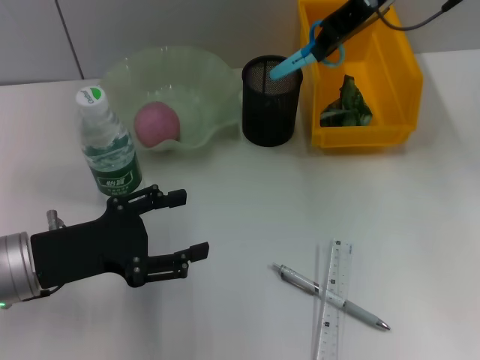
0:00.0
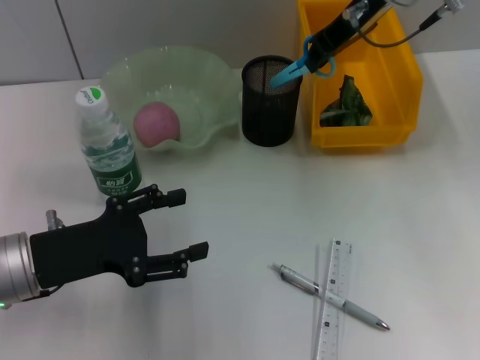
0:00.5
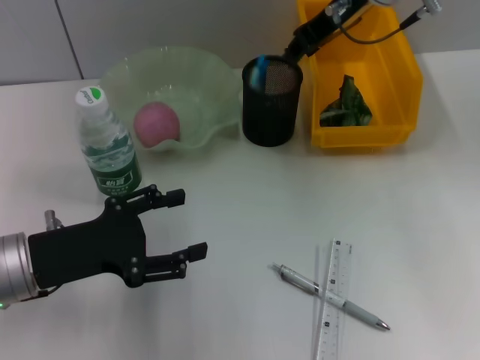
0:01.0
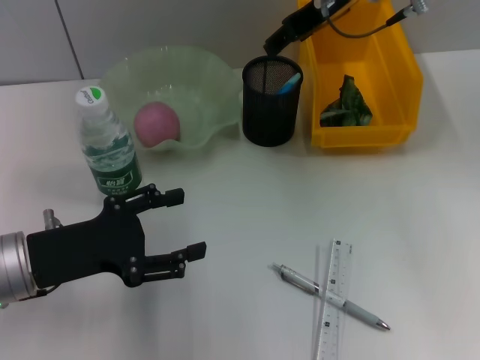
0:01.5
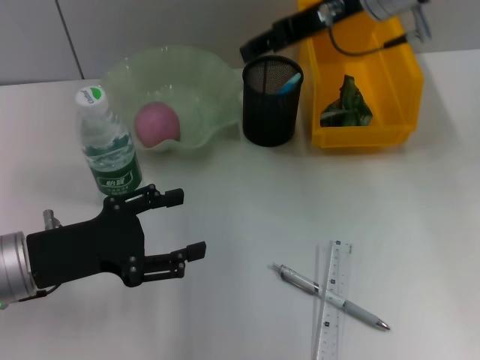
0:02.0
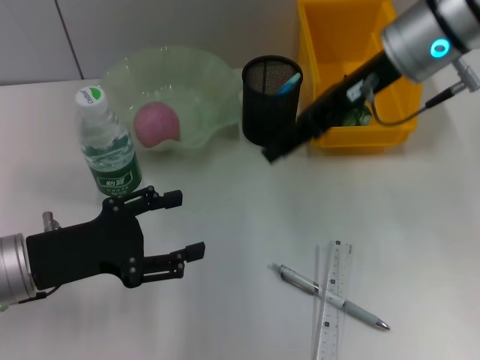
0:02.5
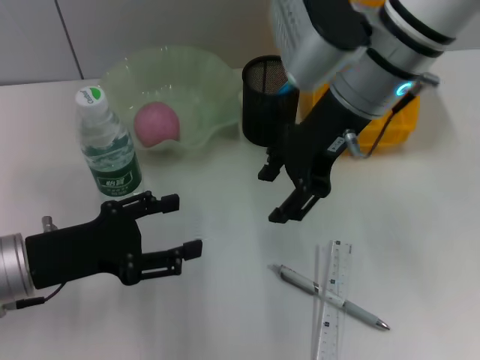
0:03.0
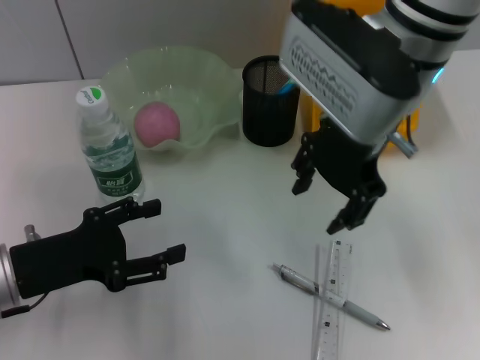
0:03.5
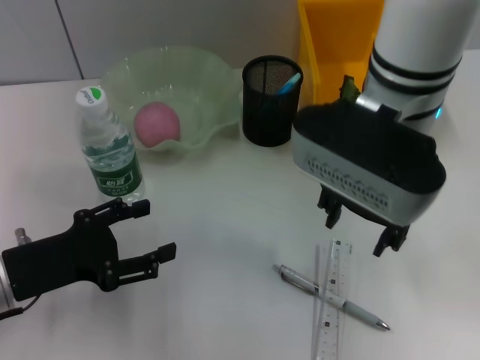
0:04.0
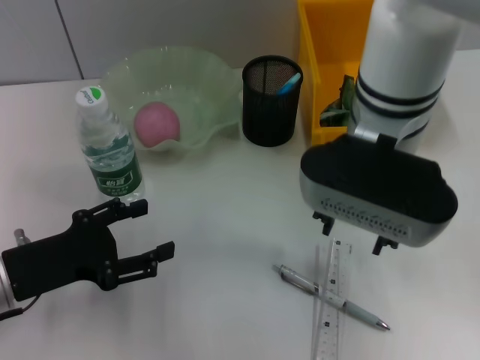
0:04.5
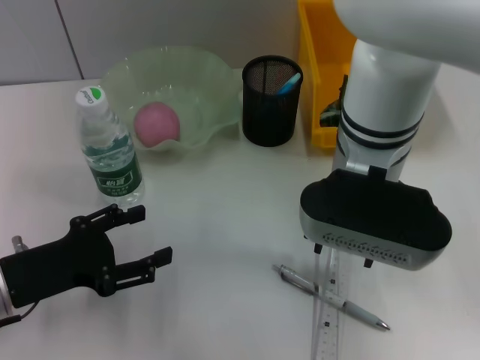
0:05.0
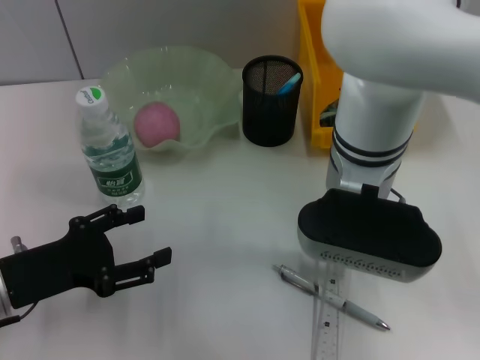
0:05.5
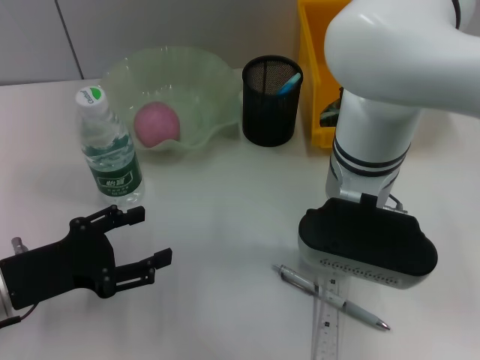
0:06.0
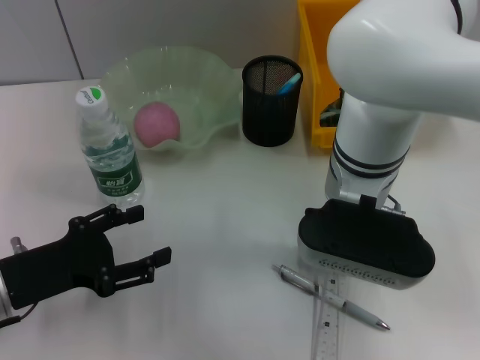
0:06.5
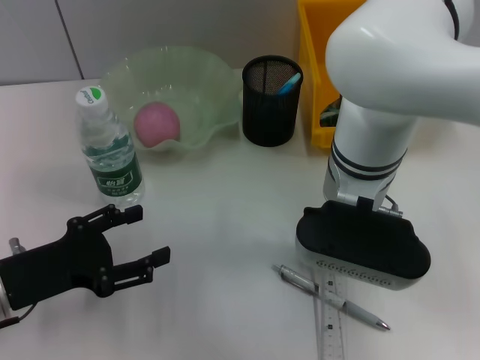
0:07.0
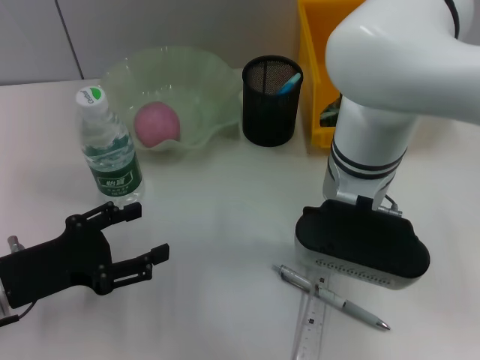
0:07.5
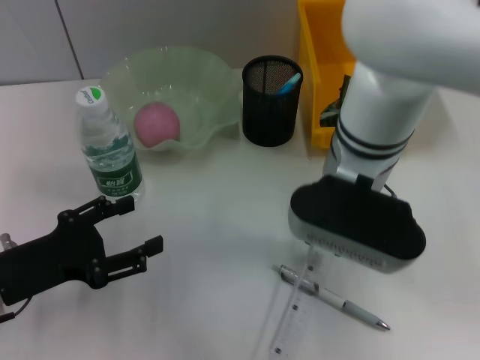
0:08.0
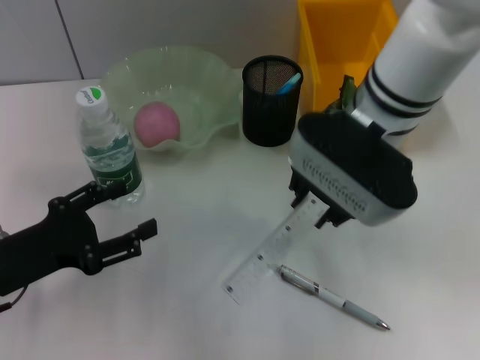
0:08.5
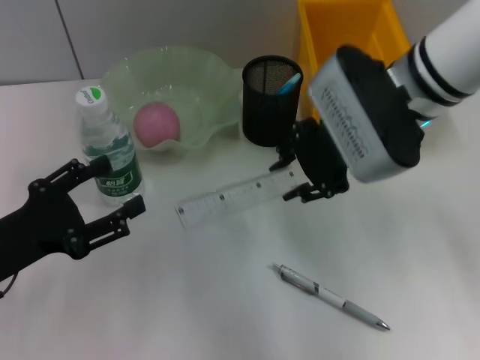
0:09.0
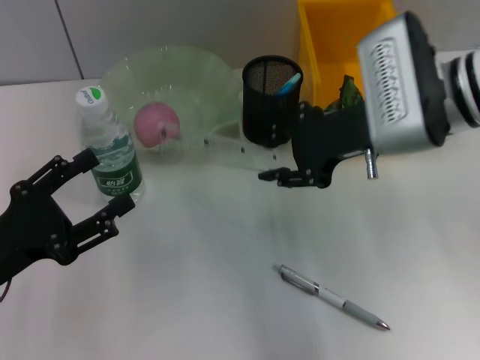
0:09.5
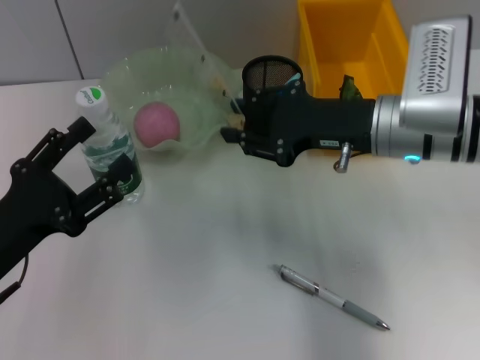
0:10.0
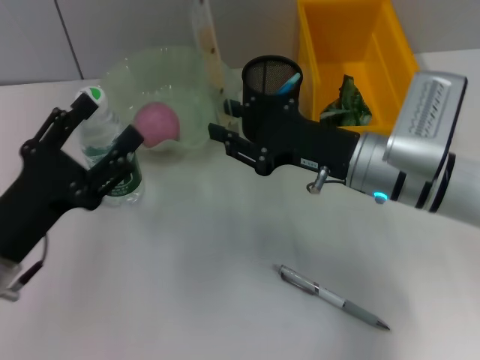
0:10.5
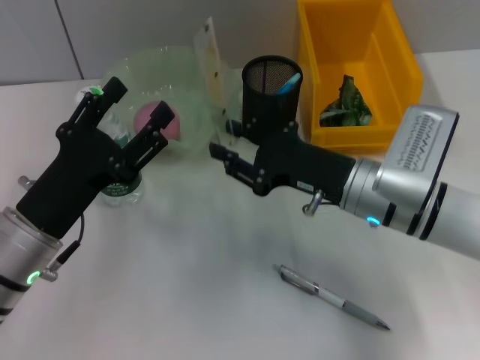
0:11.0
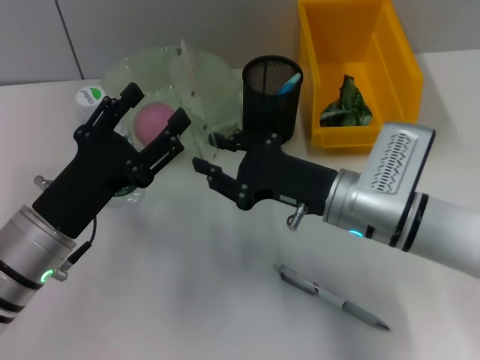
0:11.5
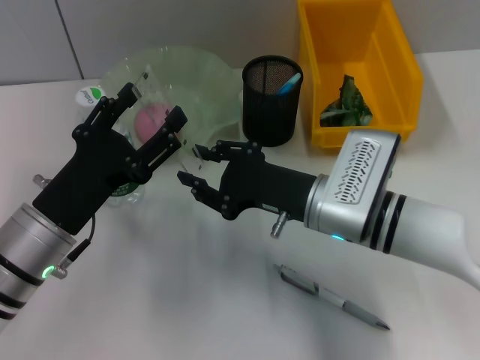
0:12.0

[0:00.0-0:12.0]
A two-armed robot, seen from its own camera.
Step, 0:02.0 to 0:07.5: Grab the ruler with the right hand.
0:00.0 to 0:02.0: The right gripper opens its fingers.
0:02.0 to 0:04.0: The right gripper heads backward and to the left, covering about 10 cm.
0:04.0 to 0:06.0: The right gripper goes some 5 cm downward.
0:06.0 to 0:08.0: The right gripper closes its fingers.
0:08.0 to 0:10.0: The right gripper heads to the right, covering about 10 cm.
0:10.0 to 0:12.0: The left gripper travels to the right by some 5 cm. Meanwhile the right gripper goes approximately 10 cm downward and to the left.

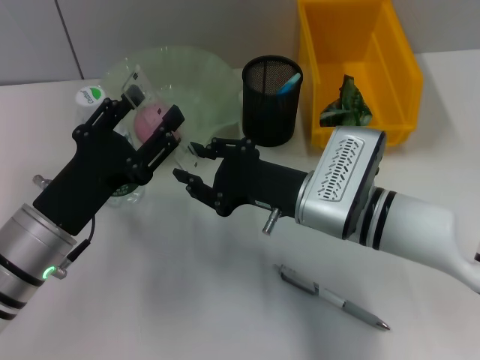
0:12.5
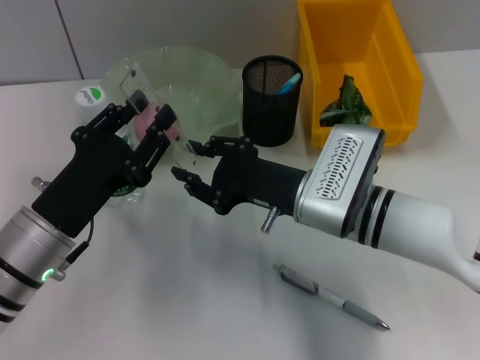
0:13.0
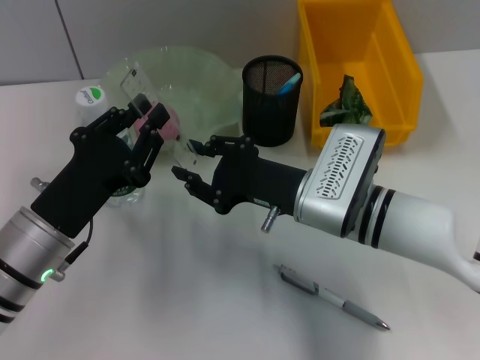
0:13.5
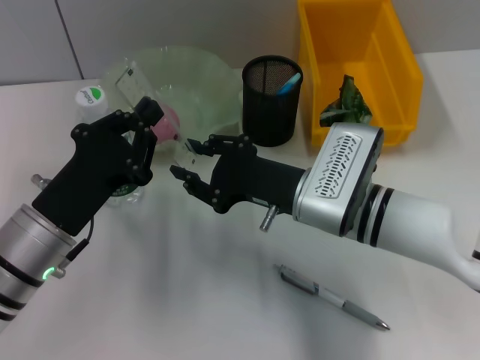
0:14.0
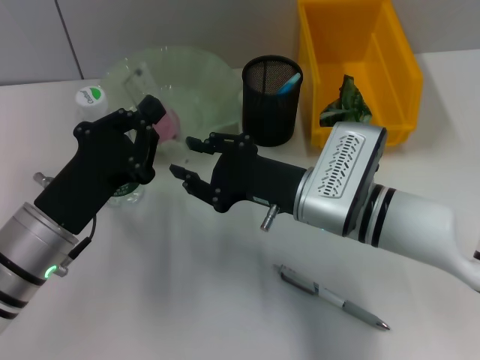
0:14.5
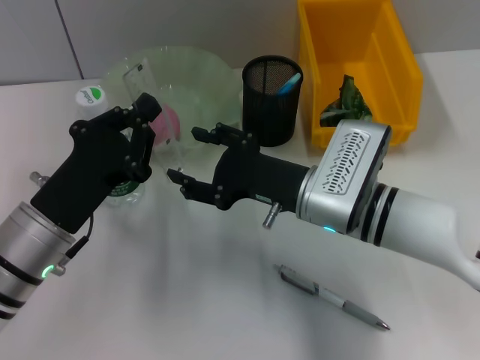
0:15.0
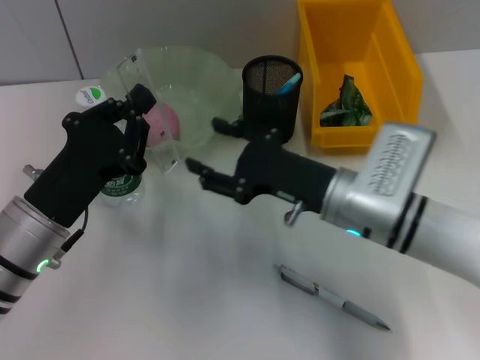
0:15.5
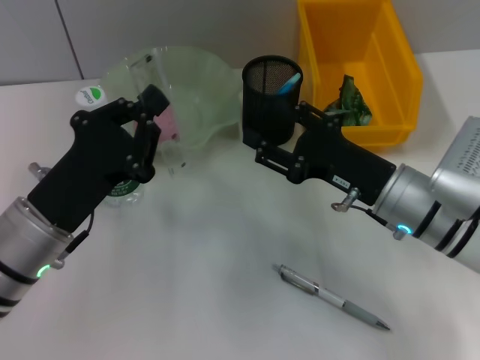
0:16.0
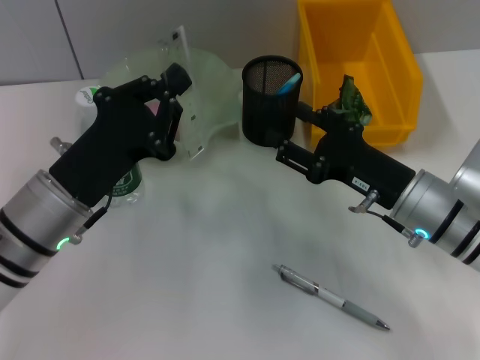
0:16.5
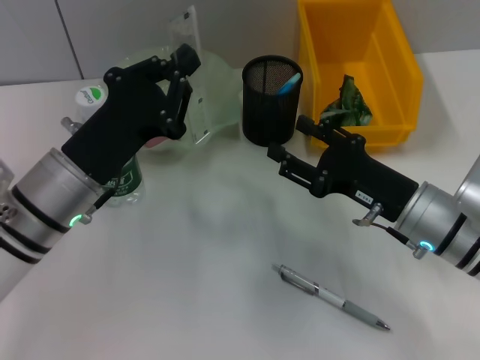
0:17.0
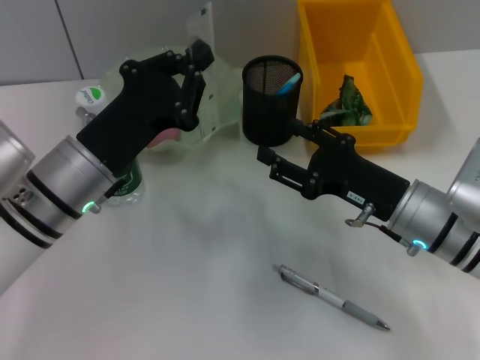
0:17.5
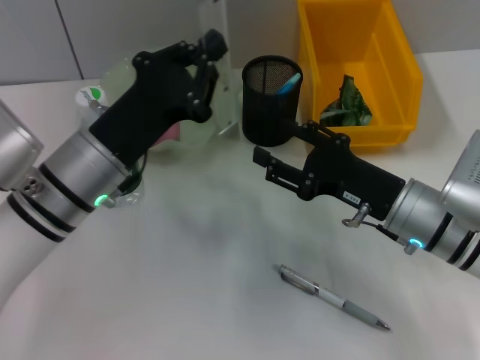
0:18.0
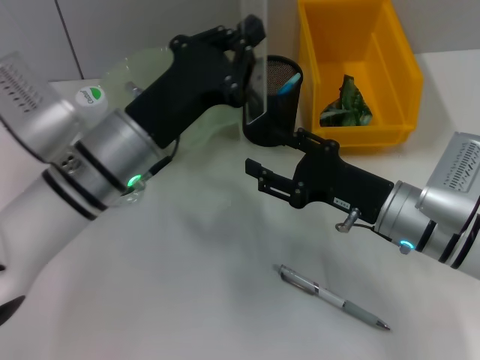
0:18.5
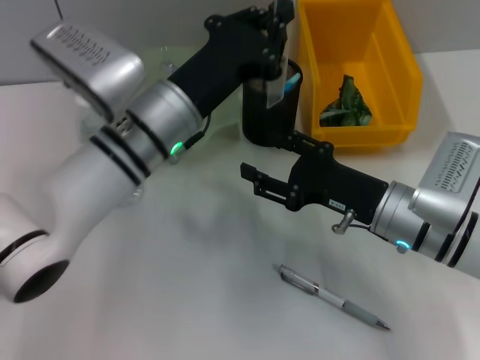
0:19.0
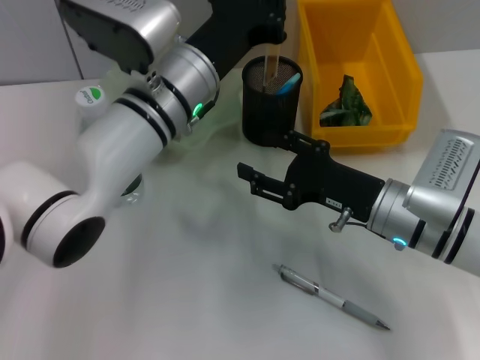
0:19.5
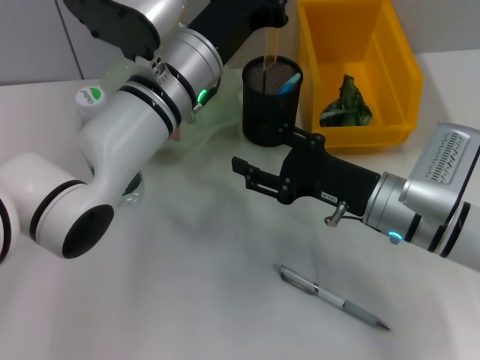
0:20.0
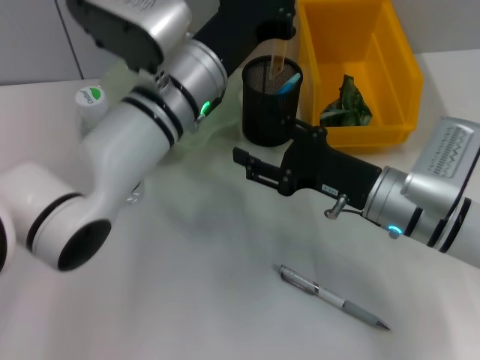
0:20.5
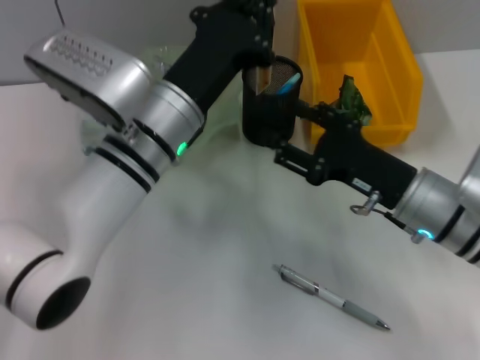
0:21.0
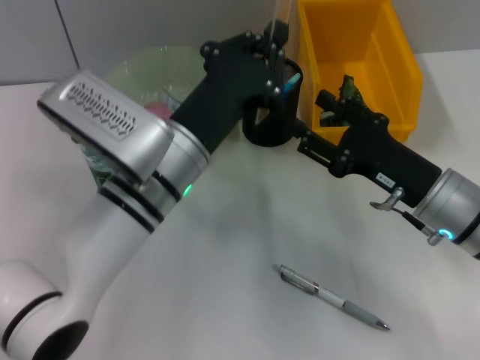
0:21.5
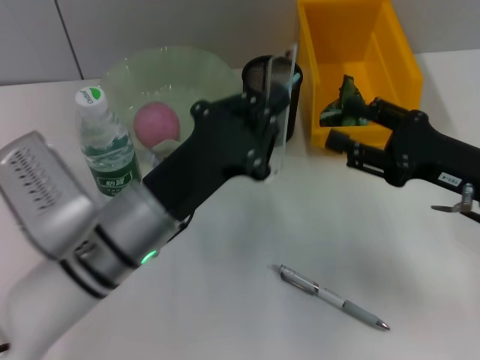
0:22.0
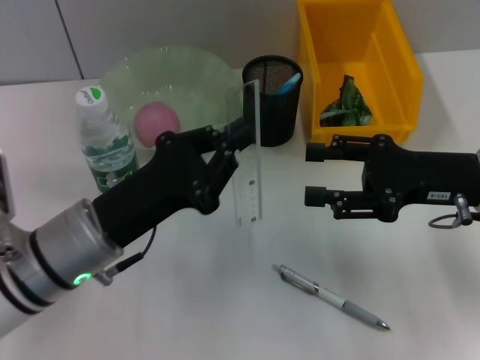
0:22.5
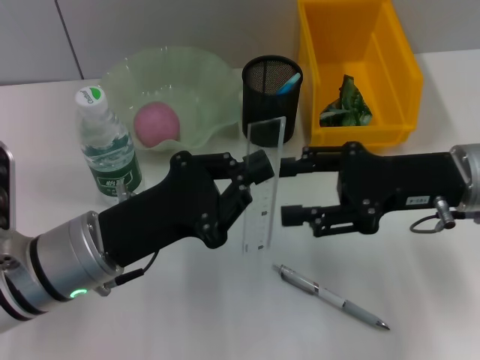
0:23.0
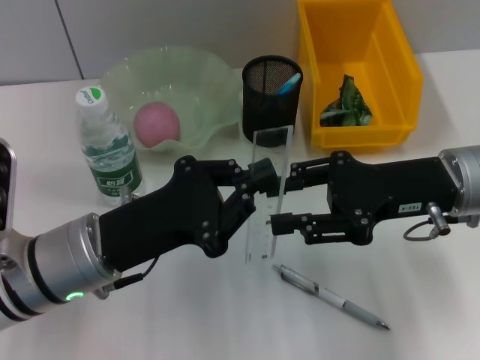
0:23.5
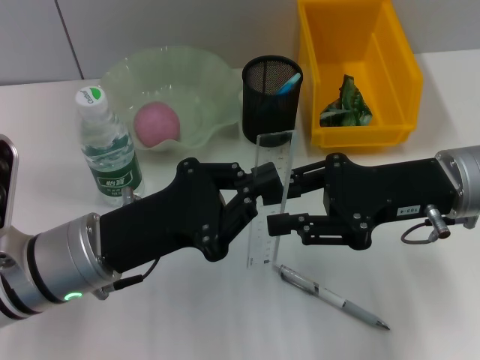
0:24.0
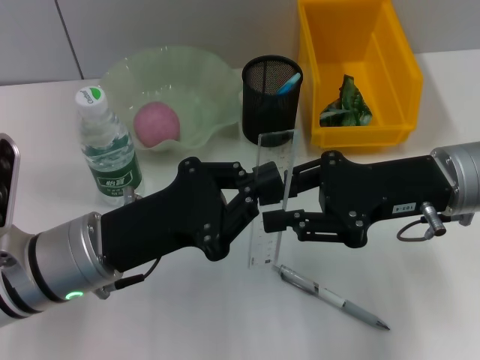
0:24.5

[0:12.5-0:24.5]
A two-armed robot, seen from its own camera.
Step, 0:12.5 to 0:14.5: Pass the ruler from the right hand to the left hand.
0:12.5 to 0:14.5: The left gripper closes.
0:14.5 to 0:16.5: The right gripper shifts about 10 cm to the right, and opens up.
0:16.5 to 0:18.5: The left gripper travels to the right by some 5 cm.
0:18.5 to 0:20.5: The left gripper goes about 5 cm to the right.
0:20.5 to 0:22.5: The left gripper moves backward, to the left and downward, roughly 15 cm; the right gripper is displaced to the right and upward by roughly 10 cm.
0:22.5 to 0:24.5: The right gripper closes.

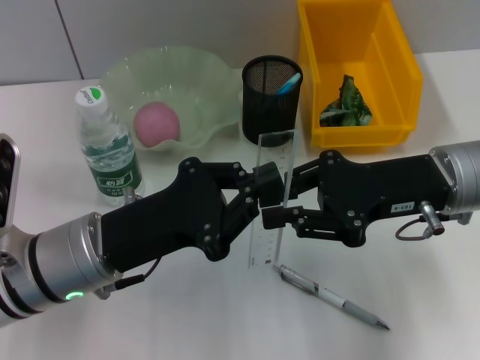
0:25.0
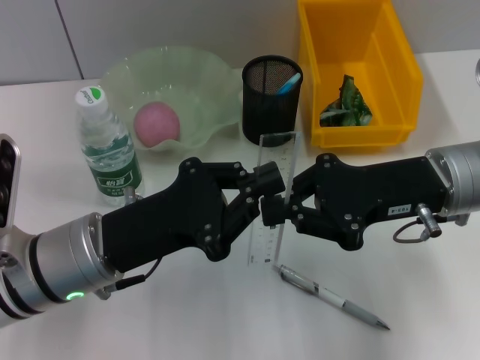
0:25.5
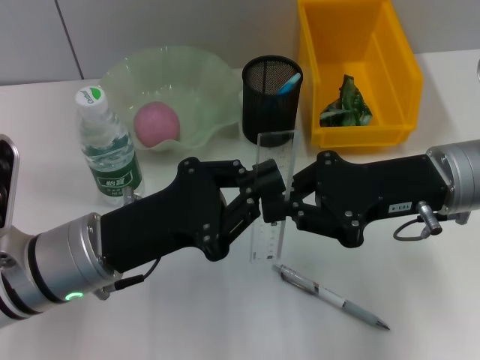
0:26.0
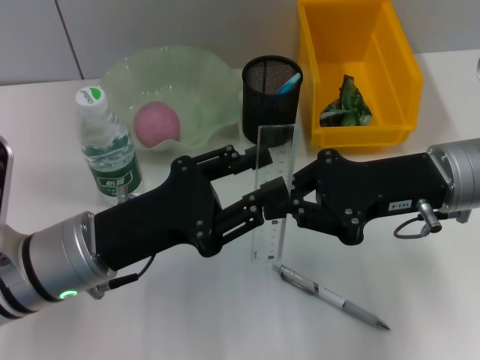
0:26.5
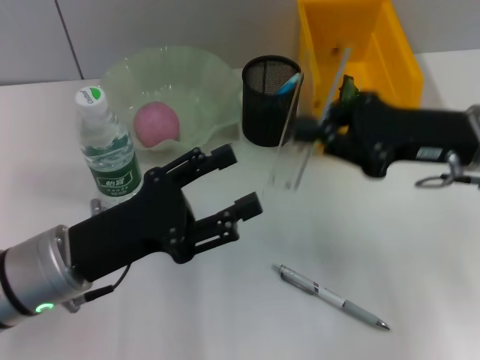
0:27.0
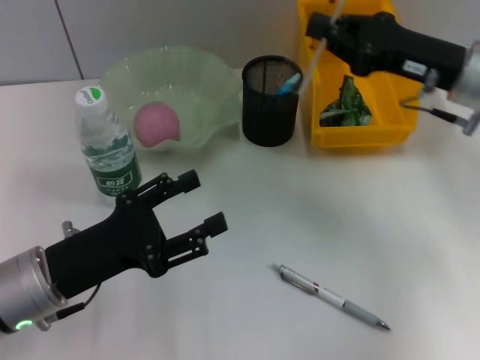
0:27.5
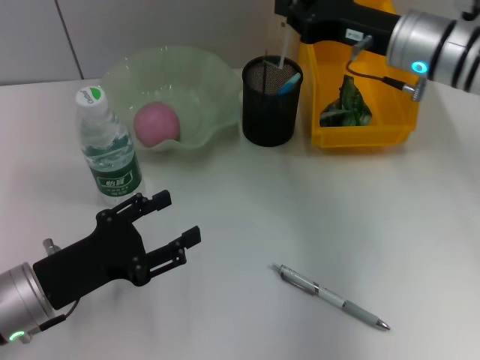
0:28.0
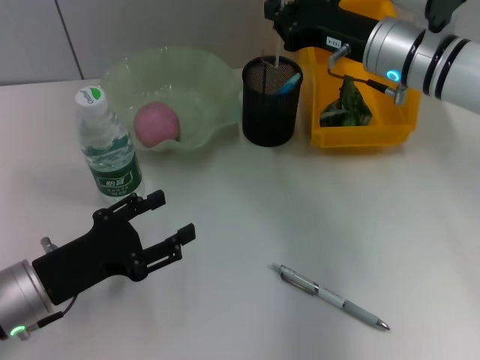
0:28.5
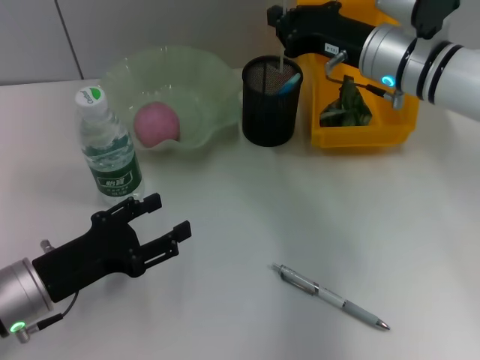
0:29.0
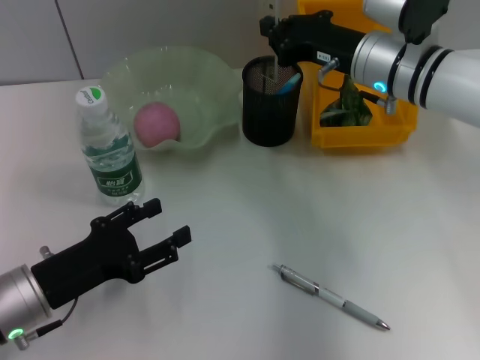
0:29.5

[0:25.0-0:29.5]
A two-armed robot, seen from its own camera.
0:25.0 to 0:27.0: The left gripper opens.
0:27.0 to 0:29.5: The left gripper shifts about 5 cm downward and to the left; the right gripper moves forward and to the left, some 10 cm.
